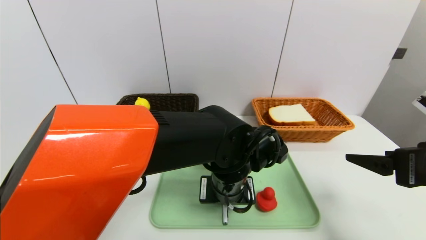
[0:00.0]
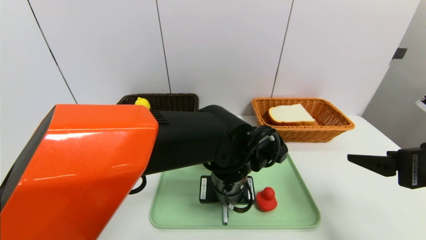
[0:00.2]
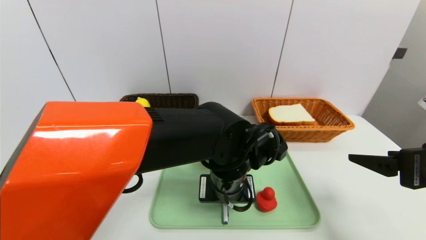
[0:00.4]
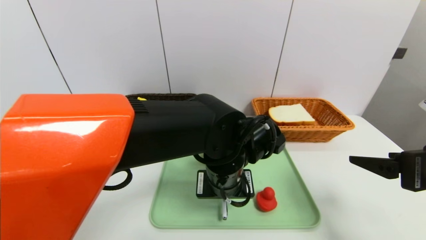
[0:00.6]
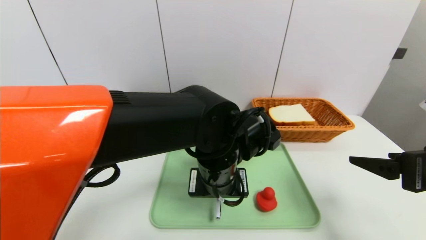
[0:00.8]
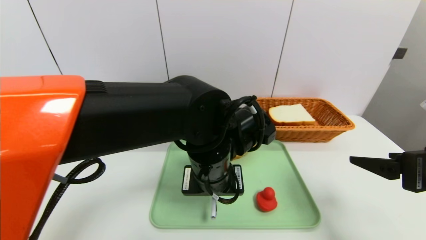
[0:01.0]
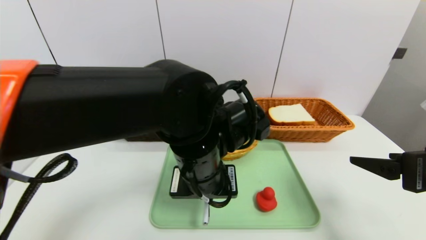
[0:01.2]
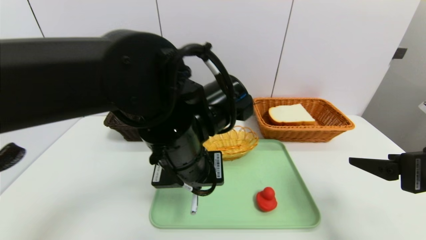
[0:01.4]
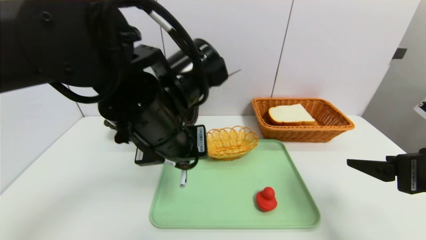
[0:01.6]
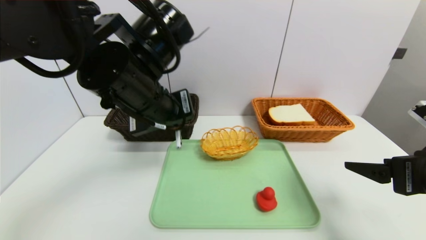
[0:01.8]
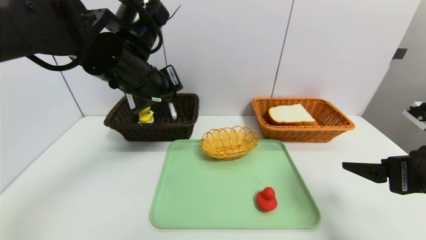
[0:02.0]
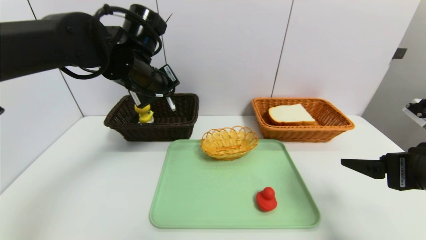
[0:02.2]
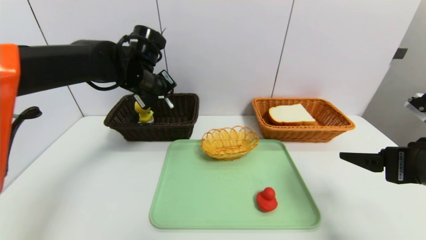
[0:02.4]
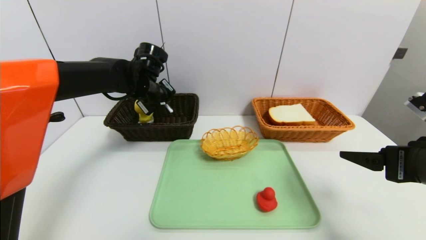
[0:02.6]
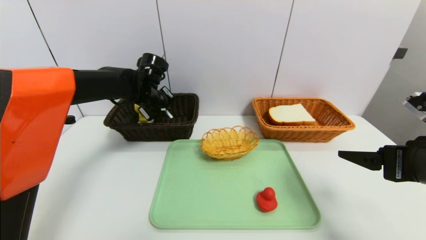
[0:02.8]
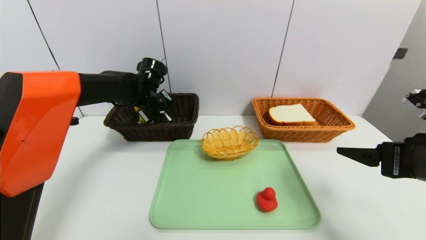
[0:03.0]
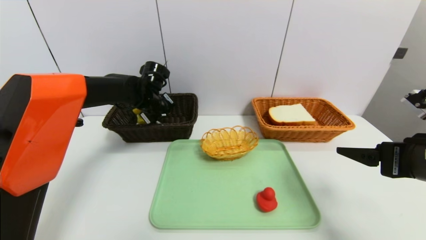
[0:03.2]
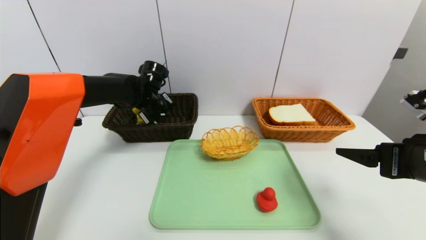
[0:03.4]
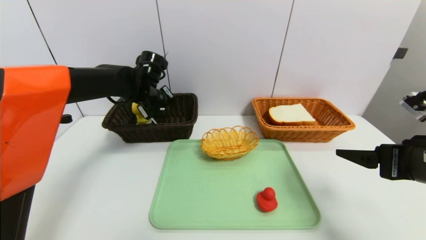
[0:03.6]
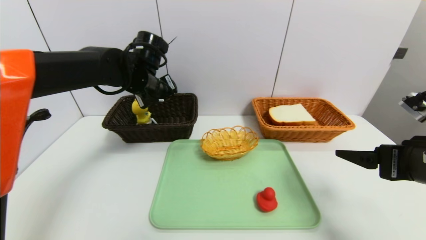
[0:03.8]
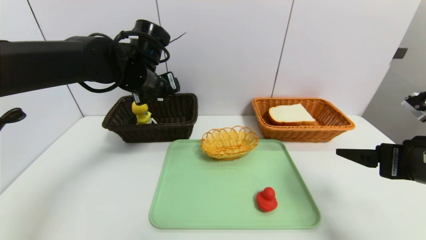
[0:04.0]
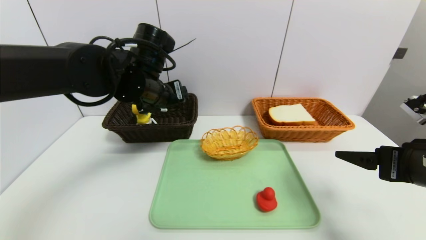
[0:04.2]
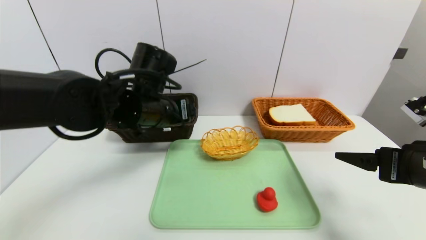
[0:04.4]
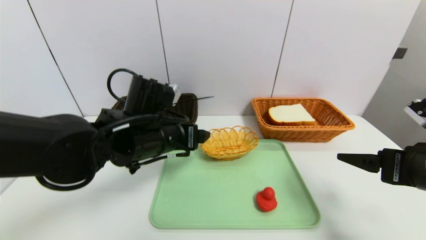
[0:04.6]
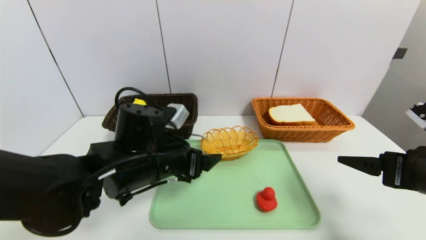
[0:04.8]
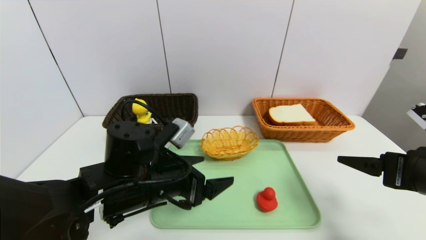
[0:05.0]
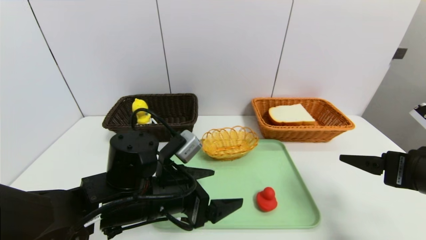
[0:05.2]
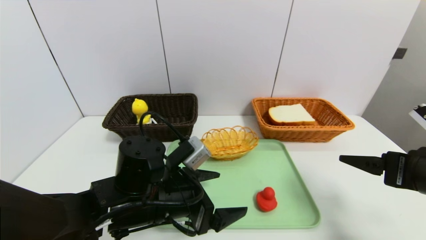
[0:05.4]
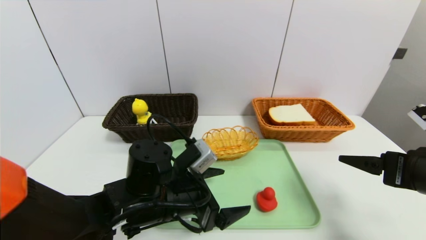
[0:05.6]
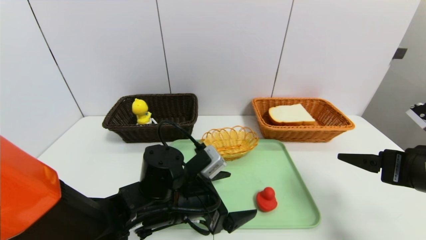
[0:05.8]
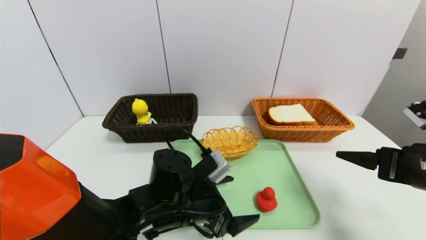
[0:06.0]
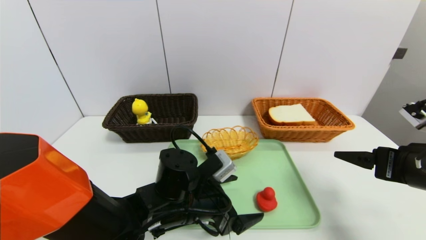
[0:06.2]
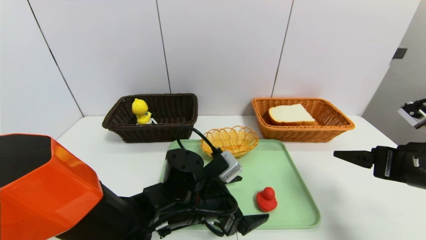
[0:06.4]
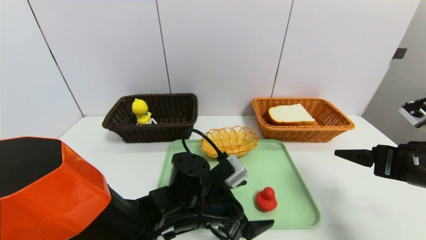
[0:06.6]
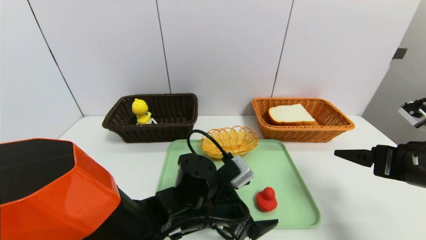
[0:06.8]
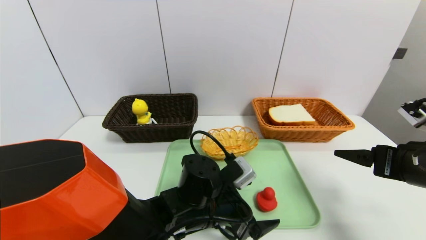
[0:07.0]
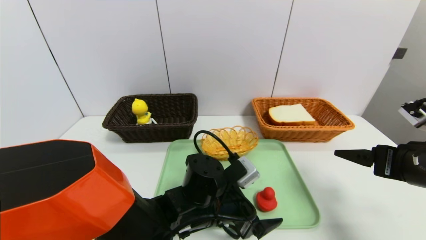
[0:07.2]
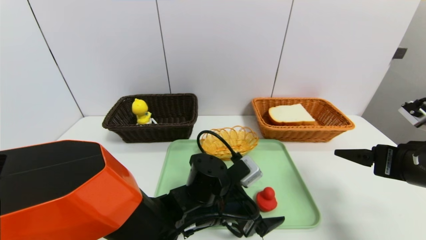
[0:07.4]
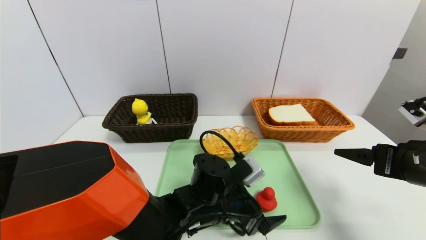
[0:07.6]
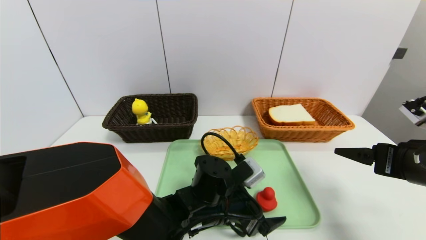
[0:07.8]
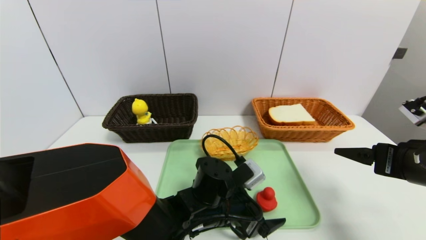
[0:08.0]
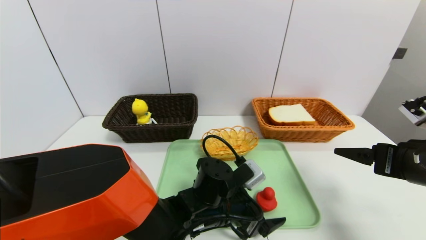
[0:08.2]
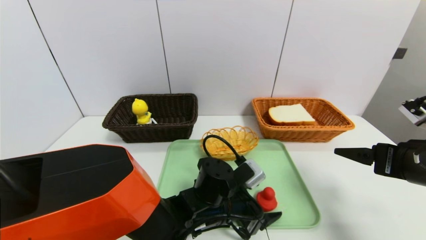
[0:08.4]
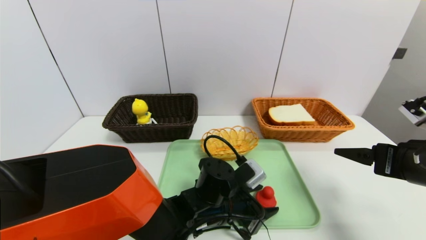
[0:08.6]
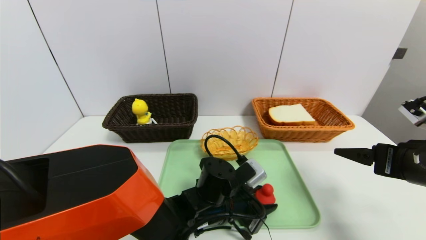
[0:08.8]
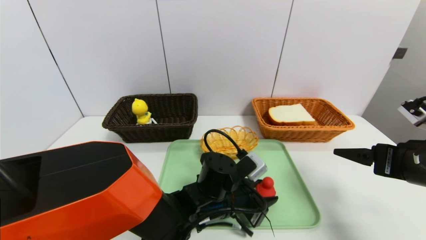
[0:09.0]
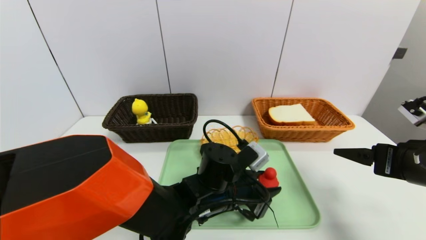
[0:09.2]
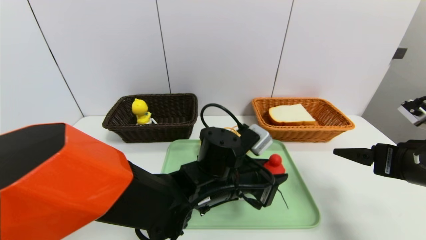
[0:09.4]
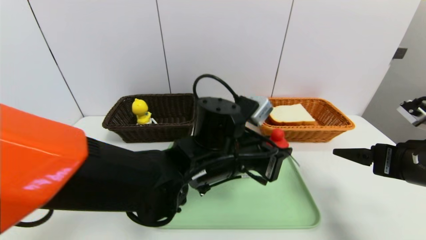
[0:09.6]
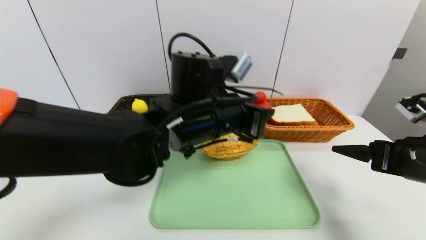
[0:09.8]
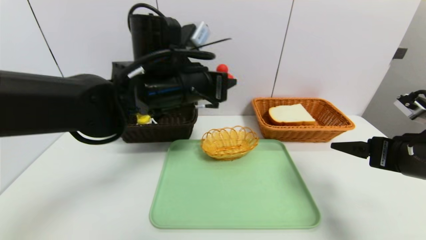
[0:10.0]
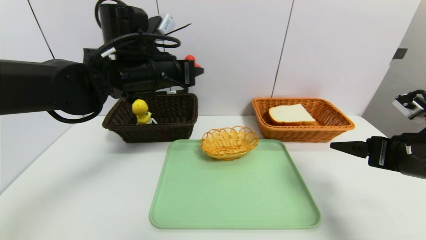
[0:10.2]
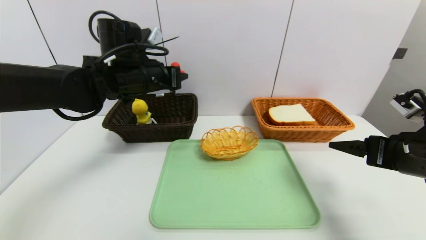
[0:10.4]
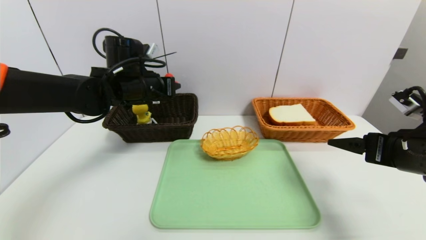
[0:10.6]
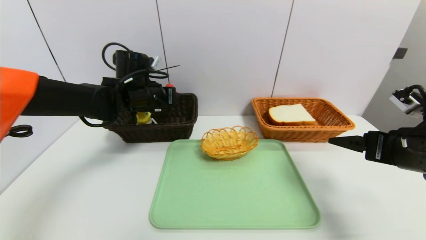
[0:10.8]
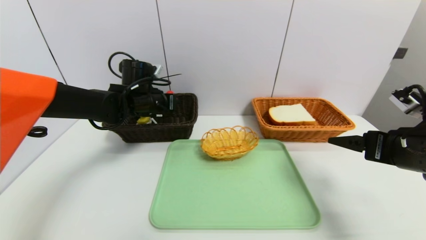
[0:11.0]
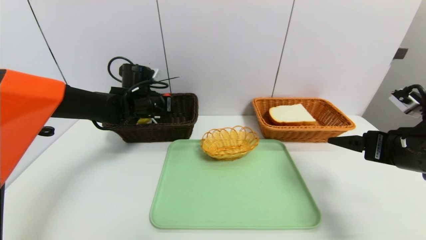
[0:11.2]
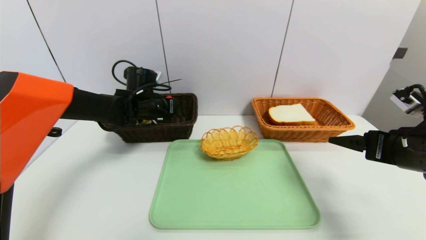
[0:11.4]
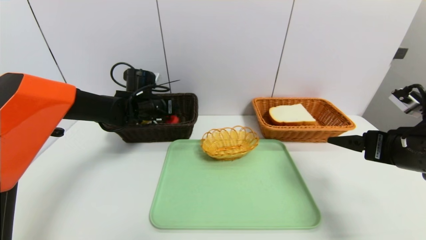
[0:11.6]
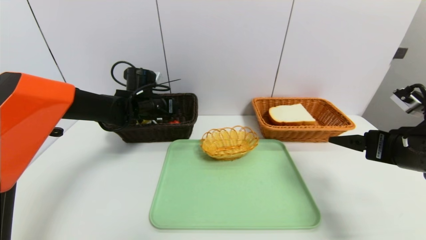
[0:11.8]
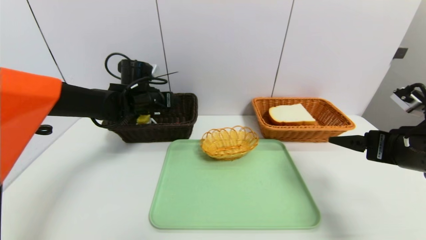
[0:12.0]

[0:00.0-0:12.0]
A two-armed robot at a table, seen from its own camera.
Task of the whole recording: place the food in the right basket with the right gripper, and place the non food items in the left basket with the left gripper.
Step, 0:00.0 to 0:04.0: Grasp the ballpoint pen and put it in the left basket.
Step, 0:04.2 to 0:11.8: Grasp the red duck and put it in the left basket.
0:00.0 to 0:01.6: The left gripper travels upward and to the left by approximately 15 cm.
0:01.6 to 0:03.0: The left gripper heads forward, covering roughly 20 cm.
0:03.0 to 0:04.4: The left gripper travels backward by roughly 15 cm, and opens up.
0:04.4 to 0:06.0: The left gripper goes some 15 cm downward and backward.
0:06.0 to 0:07.6: The left gripper goes roughly 5 cm to the right.
0:07.6 to 0:09.0: The left gripper closes its fingers.
0:09.0 to 0:10.4: The left gripper shifts about 30 cm upward, to the left and forward.
0:10.4 to 0:12.0: The left gripper shifts some 10 cm downward and forward, and opens up.

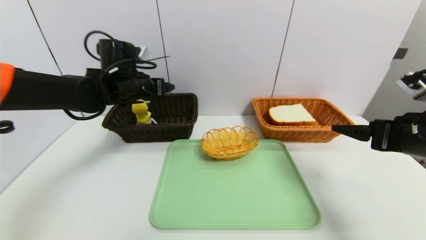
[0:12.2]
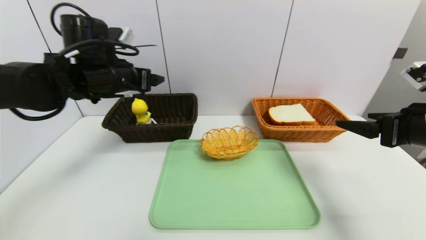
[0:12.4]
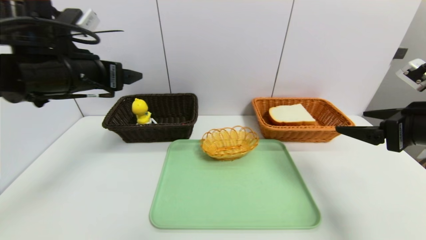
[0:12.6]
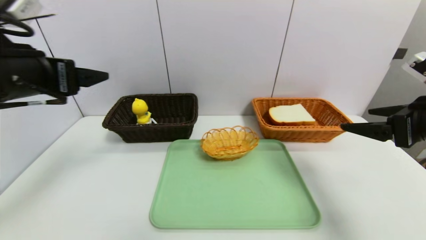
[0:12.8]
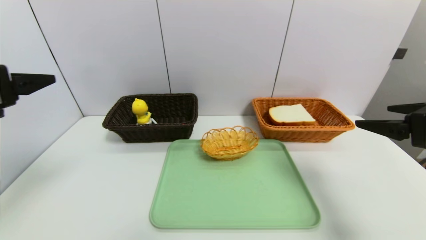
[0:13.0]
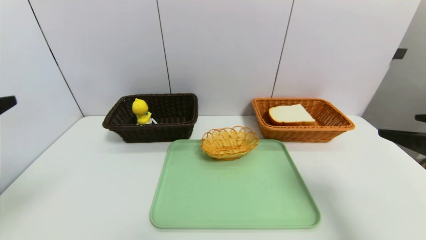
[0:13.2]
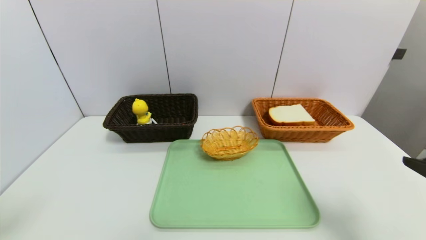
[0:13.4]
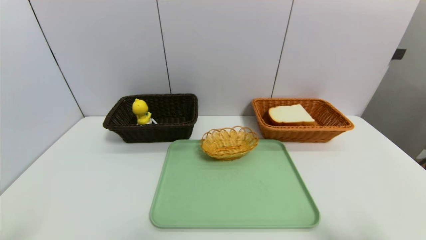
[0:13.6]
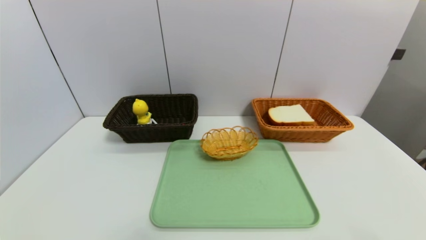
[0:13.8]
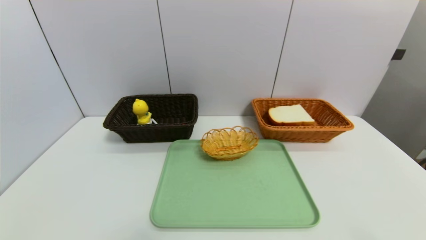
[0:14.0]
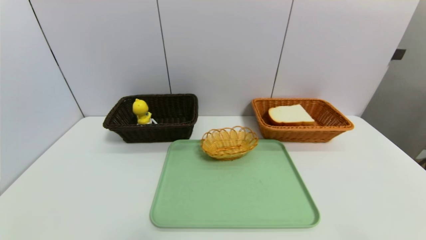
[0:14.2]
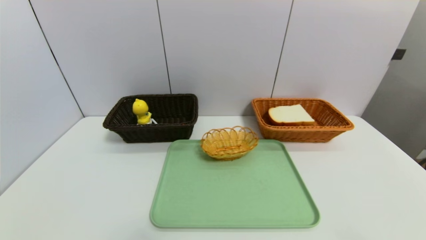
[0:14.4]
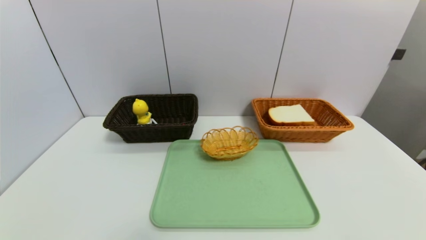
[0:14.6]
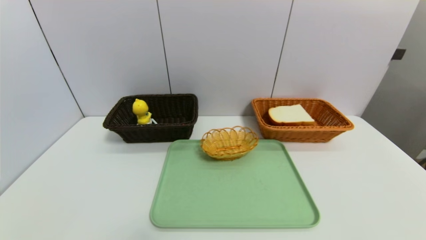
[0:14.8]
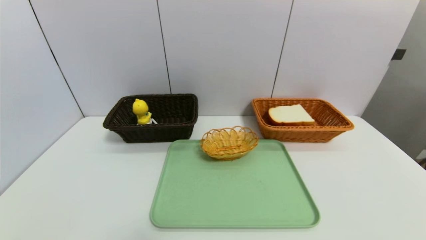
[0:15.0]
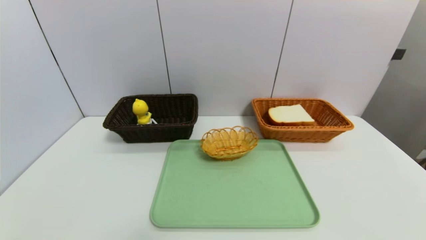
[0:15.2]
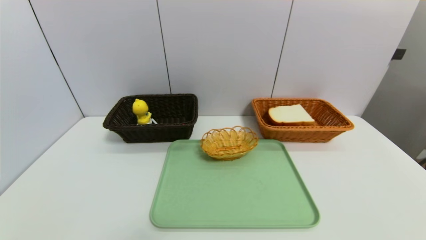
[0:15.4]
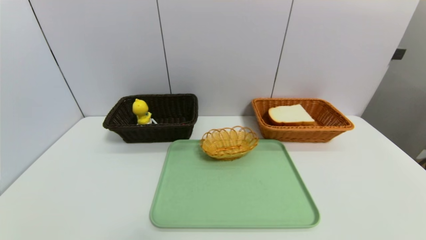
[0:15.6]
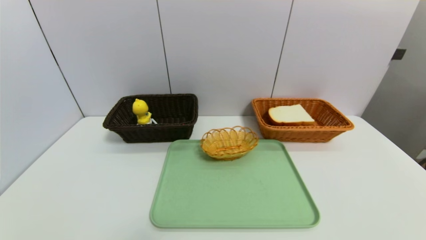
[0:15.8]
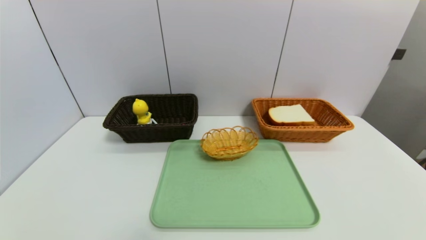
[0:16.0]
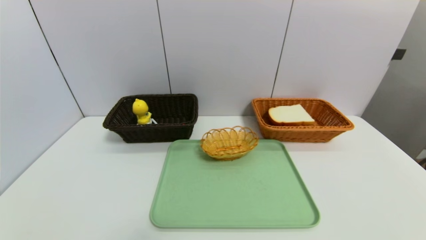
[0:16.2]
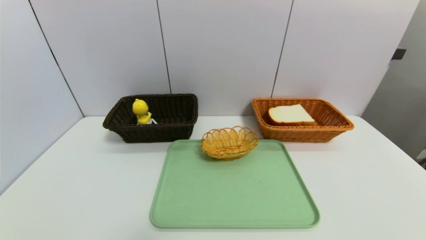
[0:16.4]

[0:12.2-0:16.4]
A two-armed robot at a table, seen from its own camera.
Task of the whole recording: place the food in the right basket with the right gripper, and place the non food items in the left basket with the left gripper.
0:12.2 to 0:13.6: The left gripper is displaced backward by some 40 cm. Meanwhile the right gripper travels backward by some 20 cm.
